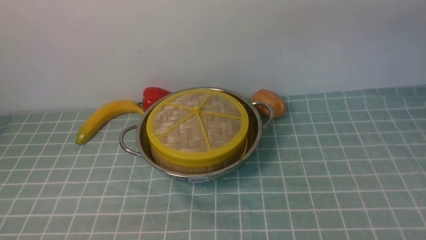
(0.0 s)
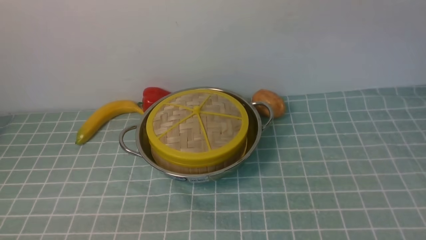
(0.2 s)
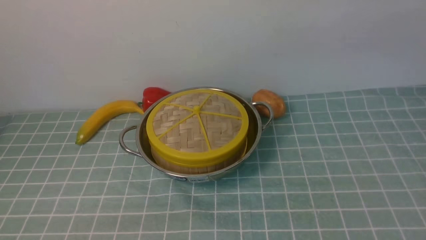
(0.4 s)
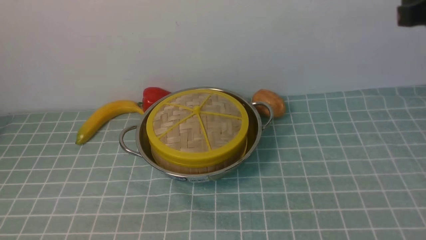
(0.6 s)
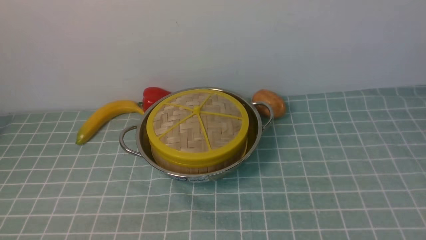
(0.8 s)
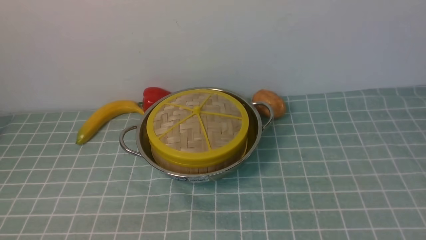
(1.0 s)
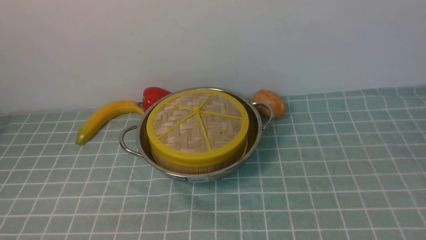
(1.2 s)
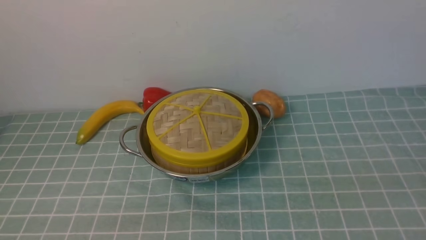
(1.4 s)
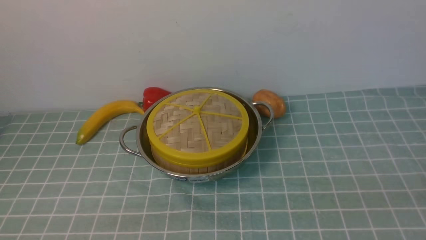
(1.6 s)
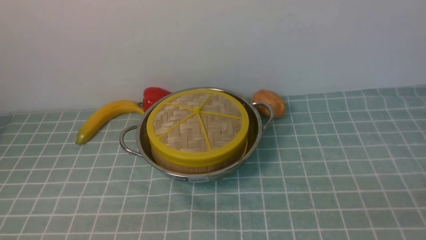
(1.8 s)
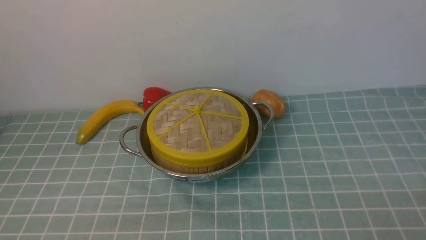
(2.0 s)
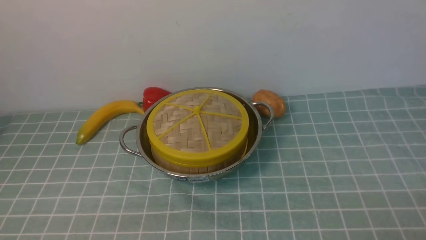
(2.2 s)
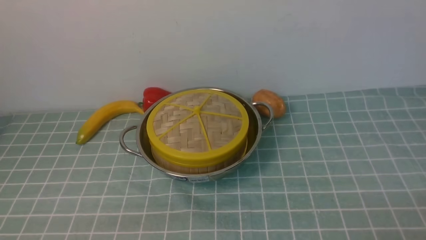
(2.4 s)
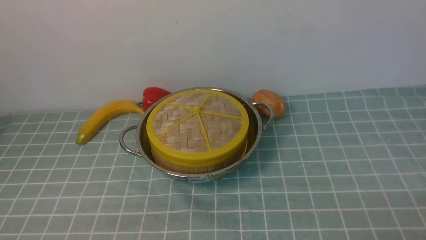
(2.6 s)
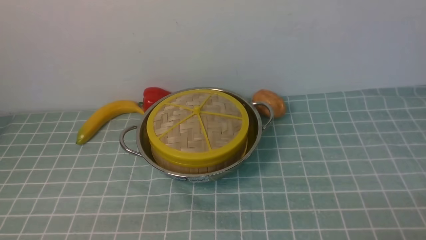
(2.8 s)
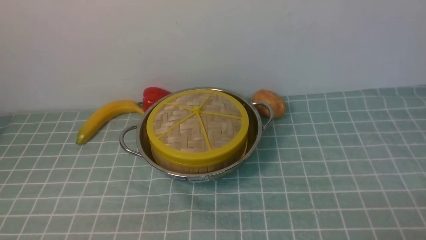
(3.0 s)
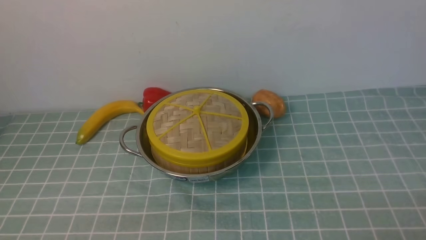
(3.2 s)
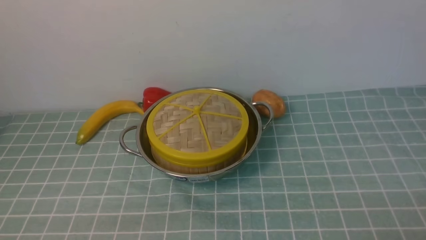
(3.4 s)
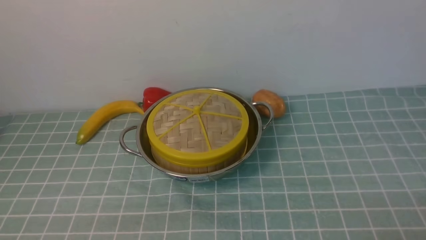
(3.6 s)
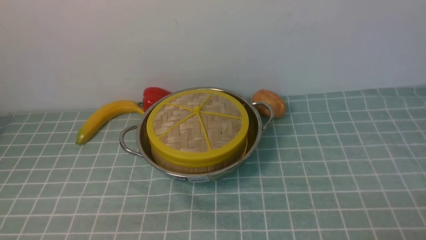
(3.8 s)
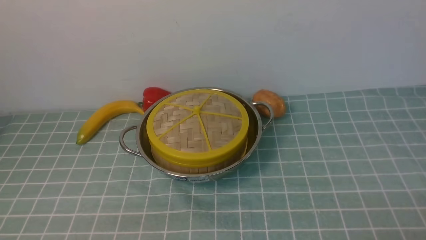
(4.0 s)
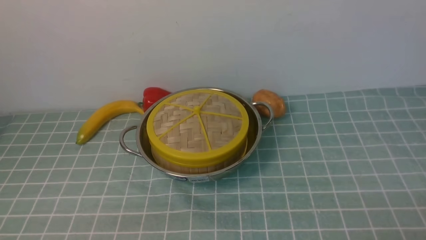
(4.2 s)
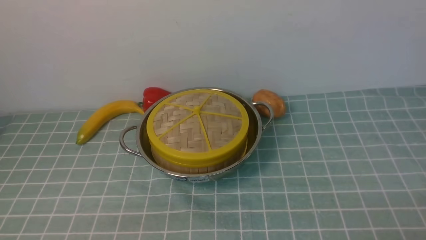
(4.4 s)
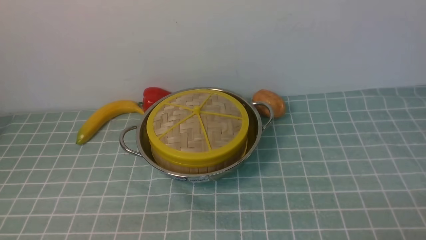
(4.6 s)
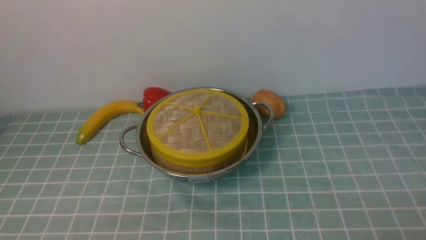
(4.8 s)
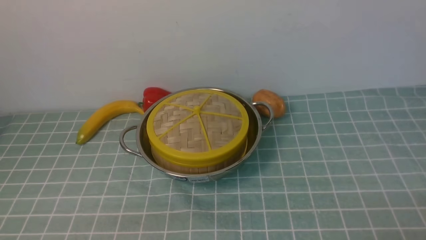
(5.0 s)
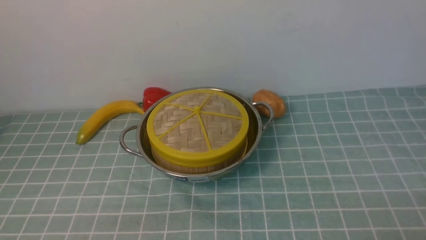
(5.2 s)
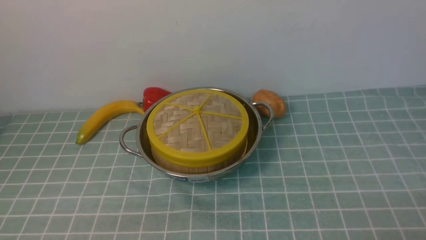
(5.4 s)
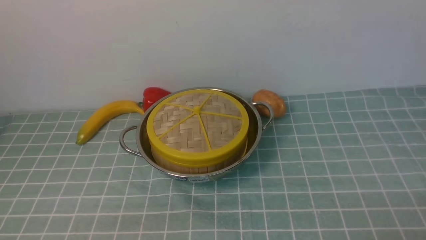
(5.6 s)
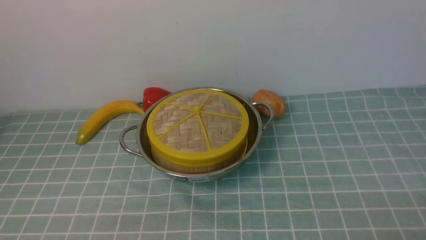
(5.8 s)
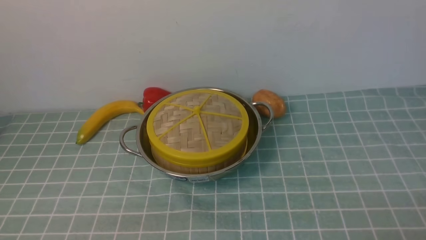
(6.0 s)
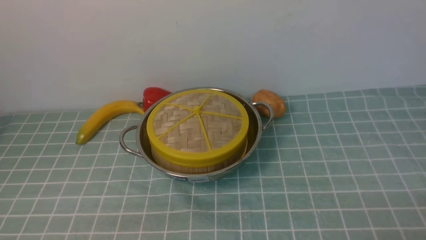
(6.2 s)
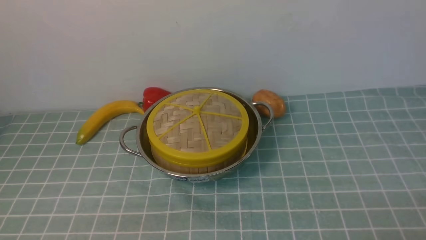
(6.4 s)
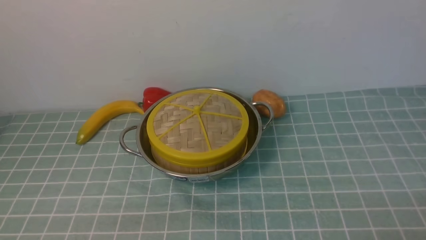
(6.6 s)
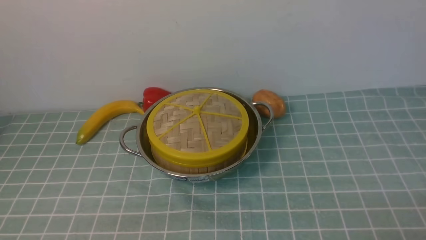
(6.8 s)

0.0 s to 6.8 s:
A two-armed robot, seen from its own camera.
Task of the whole recording: place the steamer in the pot on the blue tablecloth, and put the lid on the steamer.
2.8 to 6.8 s: Both grippers stay put.

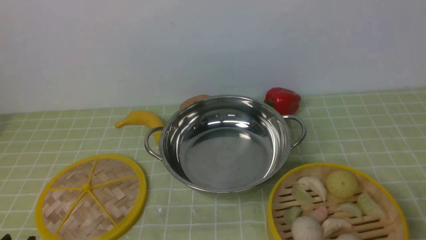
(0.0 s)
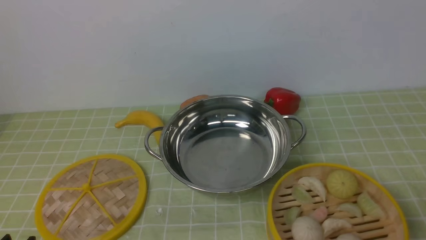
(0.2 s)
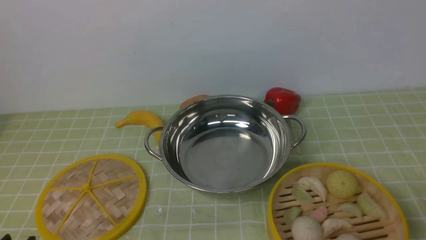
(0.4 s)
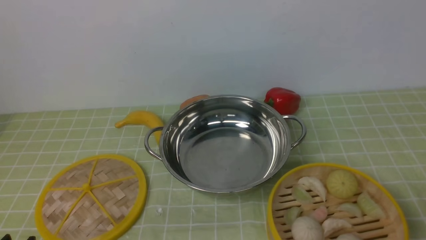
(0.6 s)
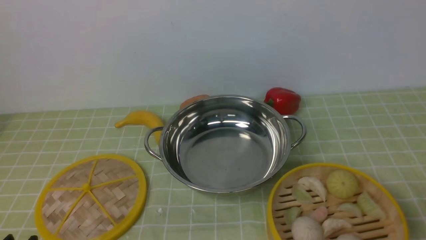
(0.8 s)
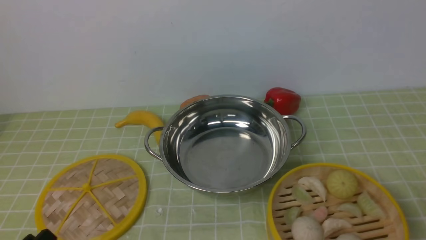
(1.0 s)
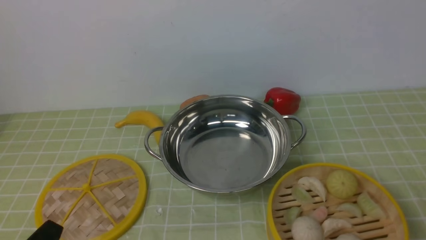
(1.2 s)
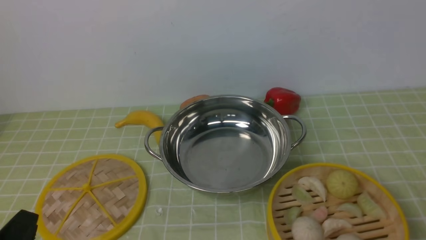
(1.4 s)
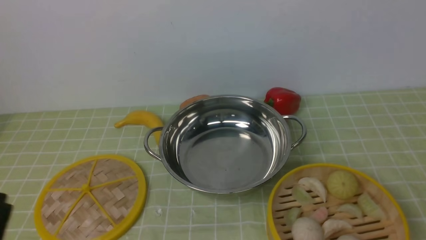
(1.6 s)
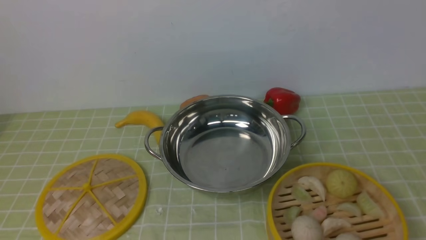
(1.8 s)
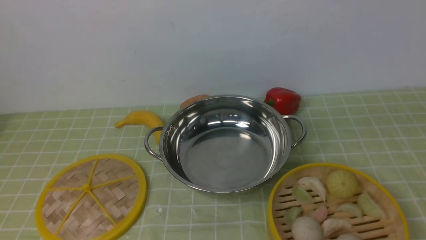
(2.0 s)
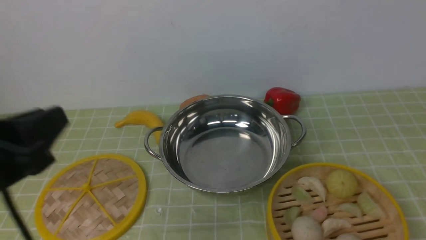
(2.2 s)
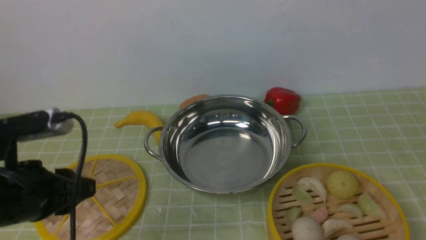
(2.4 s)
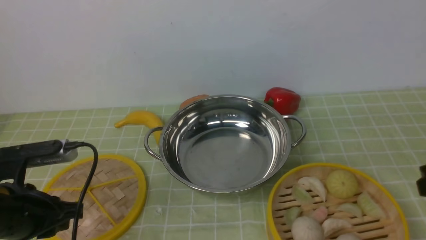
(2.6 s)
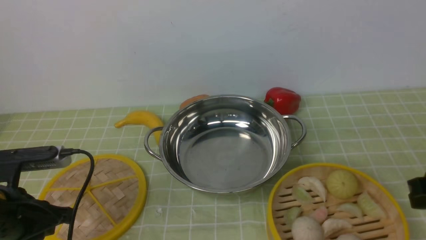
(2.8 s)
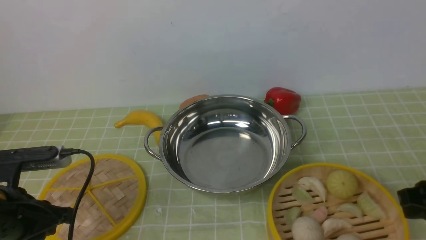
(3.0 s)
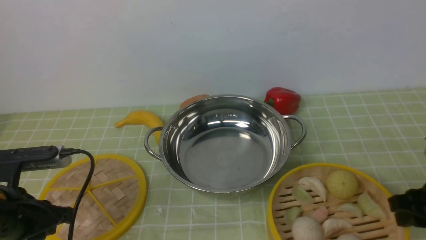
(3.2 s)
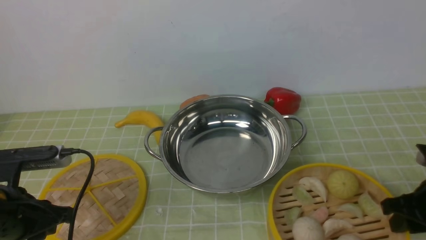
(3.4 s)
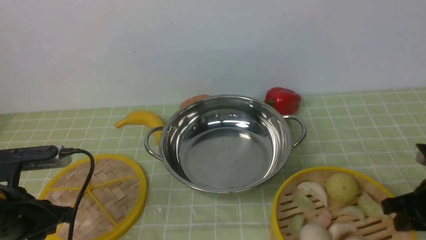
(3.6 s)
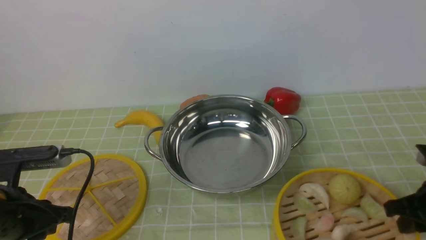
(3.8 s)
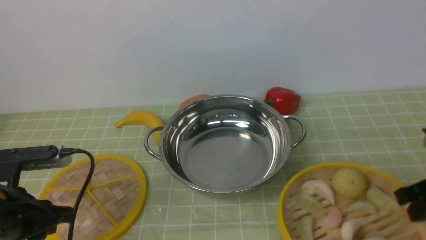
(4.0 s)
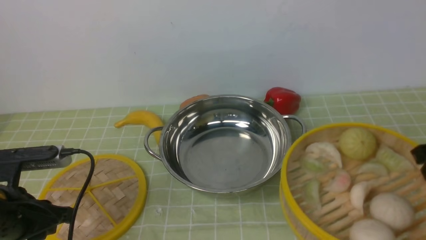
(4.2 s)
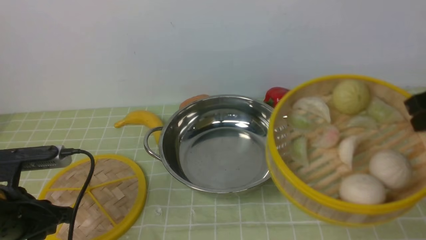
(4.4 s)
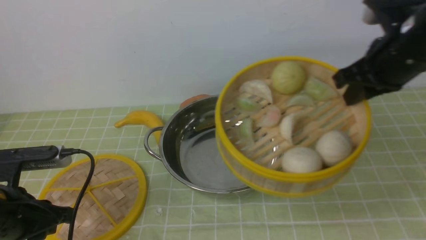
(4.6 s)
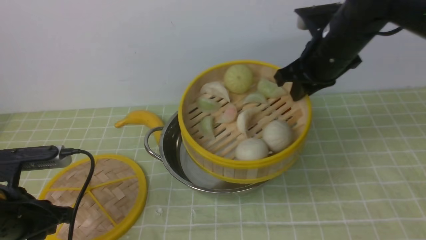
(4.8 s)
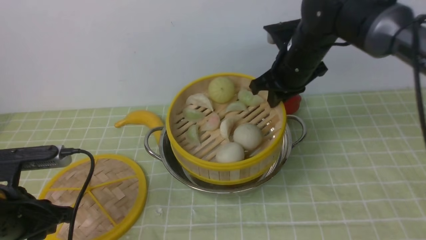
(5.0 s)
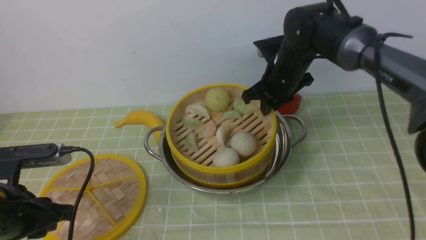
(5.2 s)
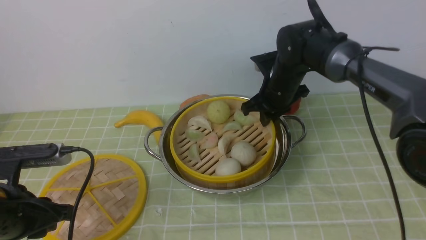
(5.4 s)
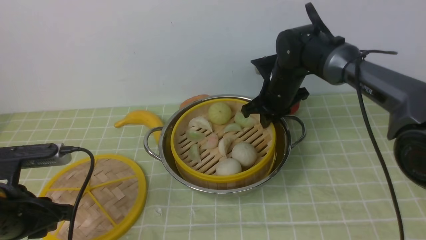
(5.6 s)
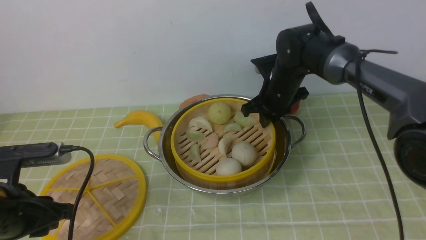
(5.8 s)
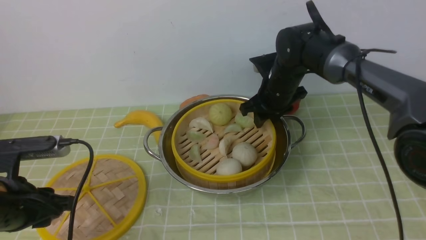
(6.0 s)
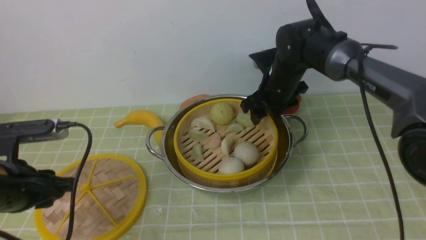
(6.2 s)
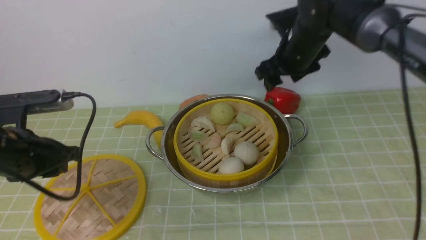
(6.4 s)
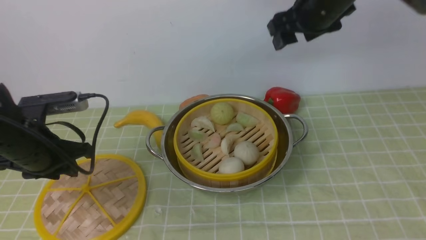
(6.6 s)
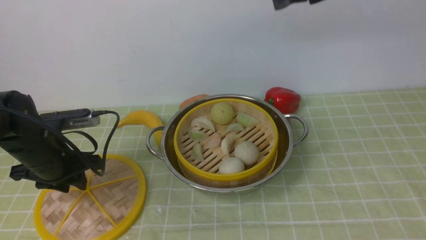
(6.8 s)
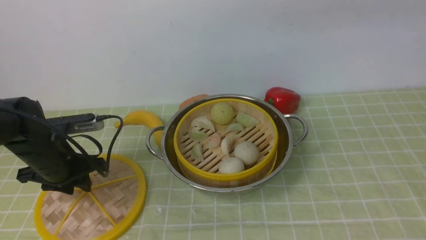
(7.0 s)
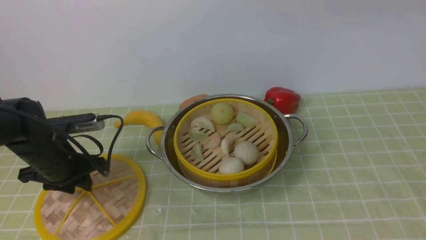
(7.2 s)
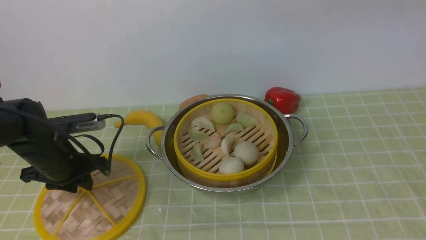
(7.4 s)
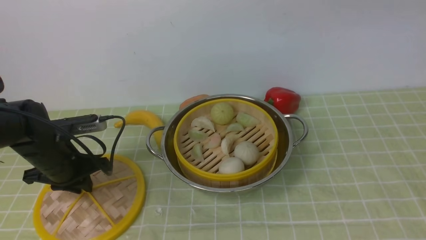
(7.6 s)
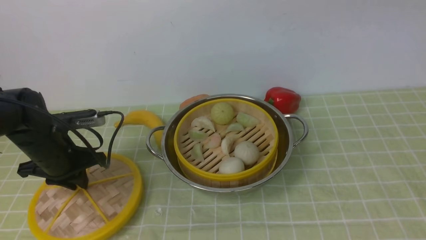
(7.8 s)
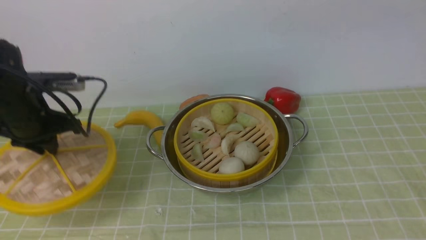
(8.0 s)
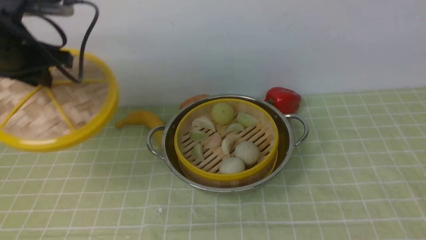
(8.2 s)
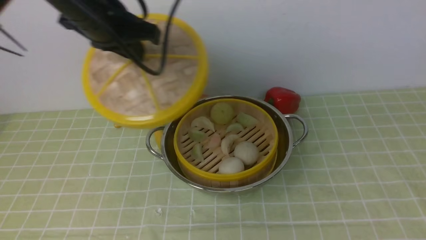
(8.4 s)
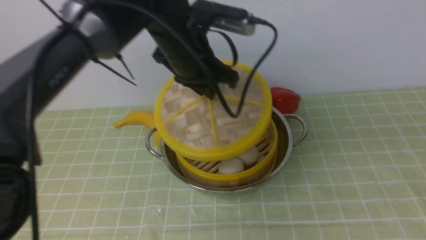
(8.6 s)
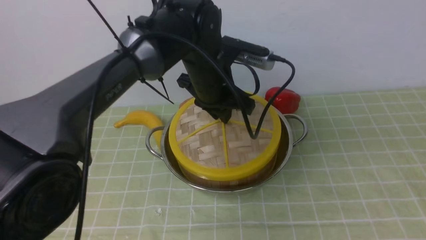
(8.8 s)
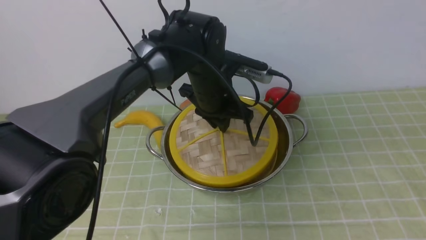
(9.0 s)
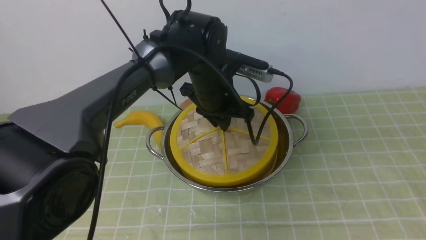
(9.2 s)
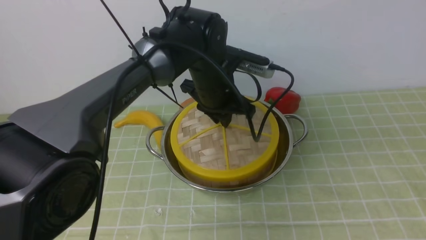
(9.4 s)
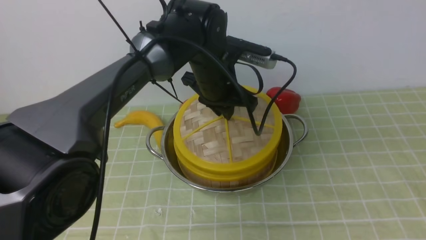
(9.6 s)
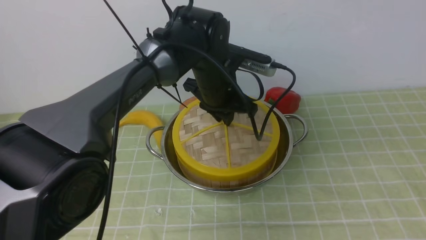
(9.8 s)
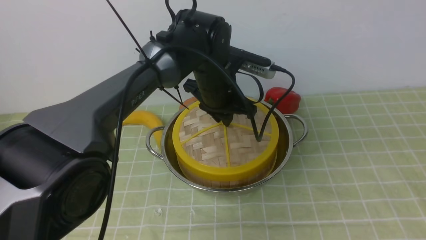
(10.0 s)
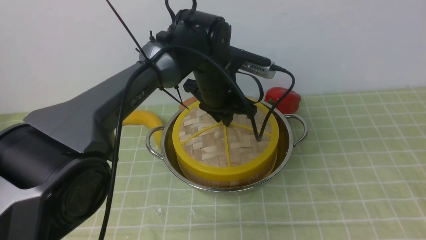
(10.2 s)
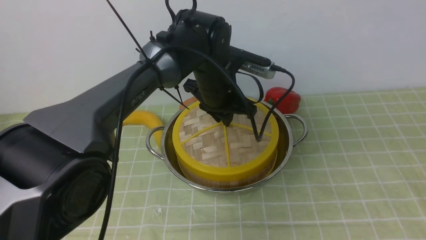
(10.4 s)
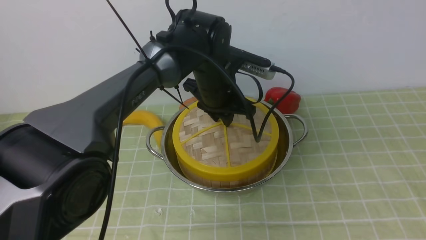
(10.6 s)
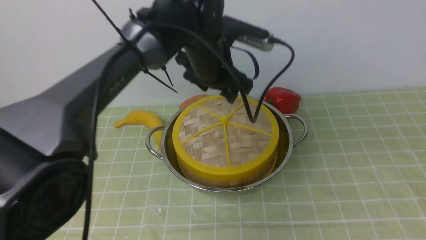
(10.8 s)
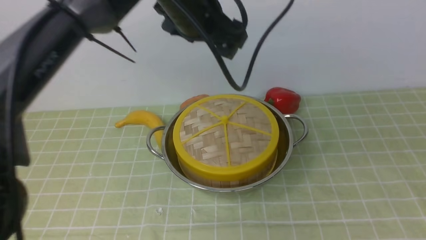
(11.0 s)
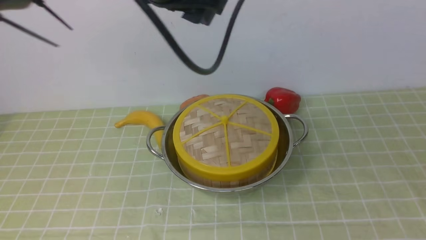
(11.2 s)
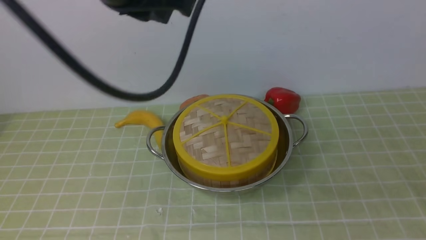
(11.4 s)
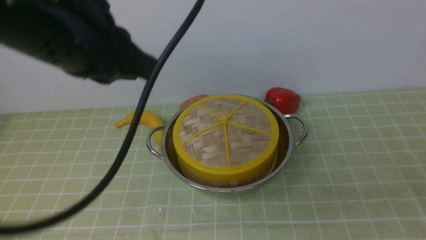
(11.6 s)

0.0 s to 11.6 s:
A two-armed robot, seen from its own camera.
Task of the whole recording: place the steamer in the pot on the green tablecloth, and put the lid on the steamer.
Step, 0.0 to 4.2 s: use the right arm to lift the steamer closest to it.
Step, 4.4 to 6.2 s: use the right arm to put the steamer into the iron steamer pot in the middle.
Step, 6.6 to 8.2 s: use the left arm to lift the lid of the steamer.
Step, 8.4 to 11.0 s: use the left arm to place the steamer lid on the steamer.
1.4 to 2.8 s: The left gripper heads forward, covering approximately 15 cm.
2.8 to 4.4 s: The right gripper goes roughly 5 cm forward, and travels downward and back again, approximately 10 cm each way.
4.4 to 5.8 s: The right gripper travels forward, to the left and downward by about 30 cm.
5.8 to 7.2 s: The right gripper travels upward and backward by approximately 35 cm, and opens its fingers; the left gripper is displaced forward and downward by about 15 cm.
7.2 to 8.8 s: The left gripper shifts roughly 25 cm to the right and upward; the right gripper heads backward, to the right and downward, covering roughly 25 cm.
8.8 to 10.2 s: The left gripper shifts about 5 cm downward.
10.2 to 11.6 s: The right gripper heads downward and backward, covering roughly 10 cm, and closes its fingers. Meanwhile the left gripper heads upward, backward and to the left, covering some 30 cm, and opens and closes again.
